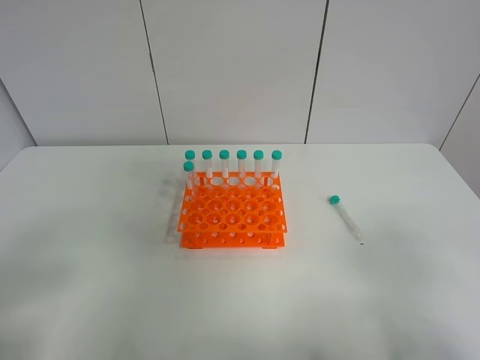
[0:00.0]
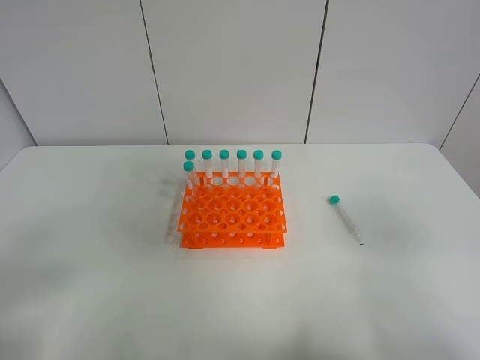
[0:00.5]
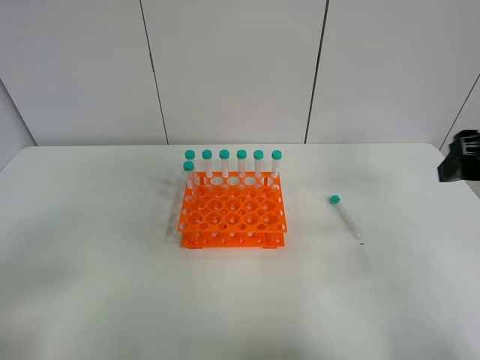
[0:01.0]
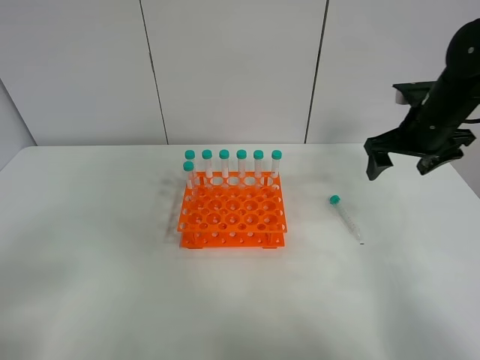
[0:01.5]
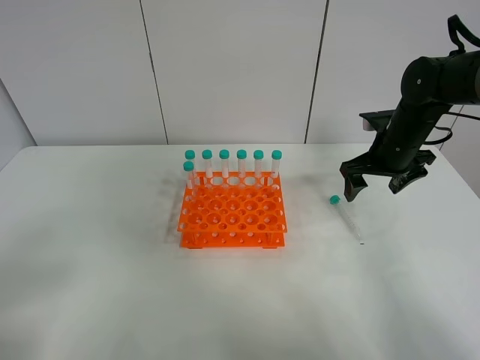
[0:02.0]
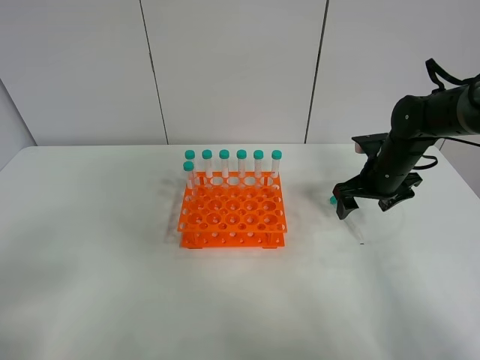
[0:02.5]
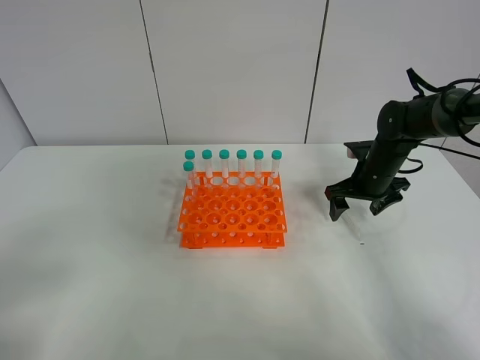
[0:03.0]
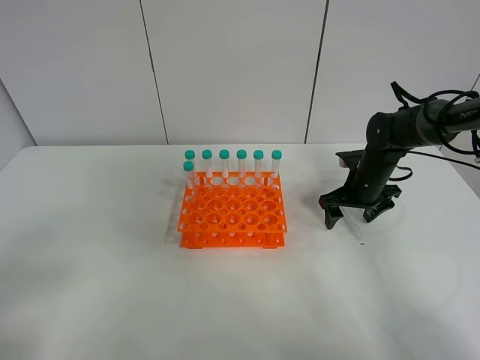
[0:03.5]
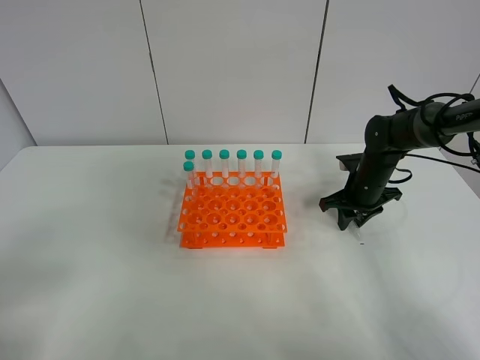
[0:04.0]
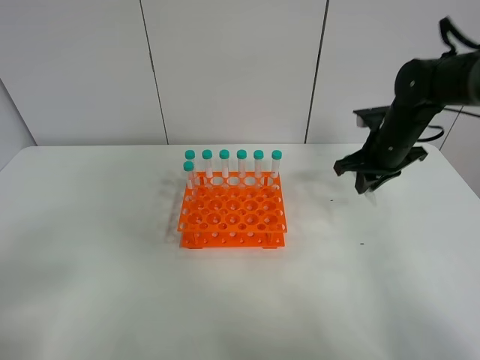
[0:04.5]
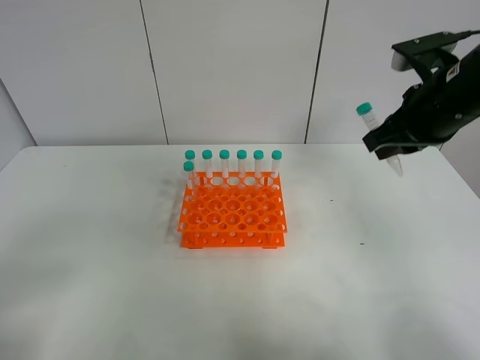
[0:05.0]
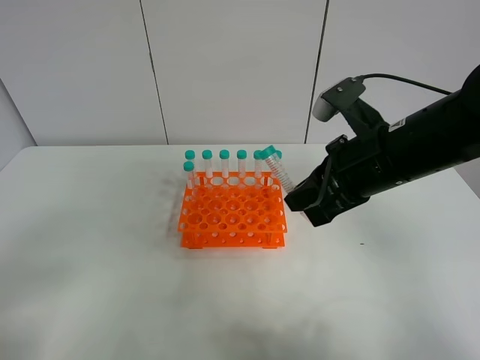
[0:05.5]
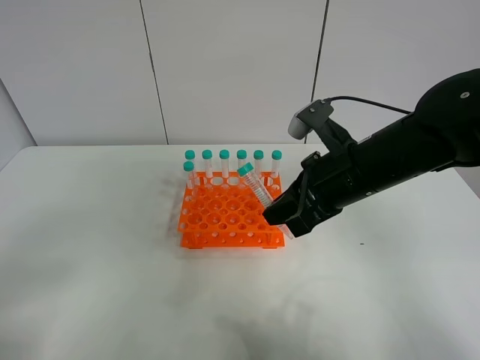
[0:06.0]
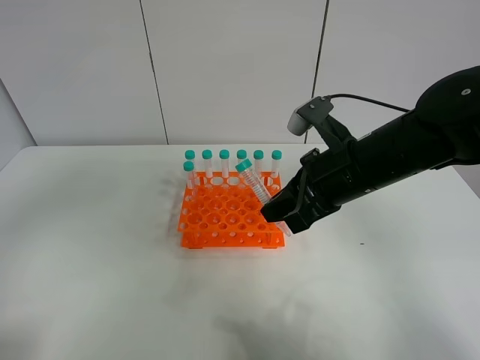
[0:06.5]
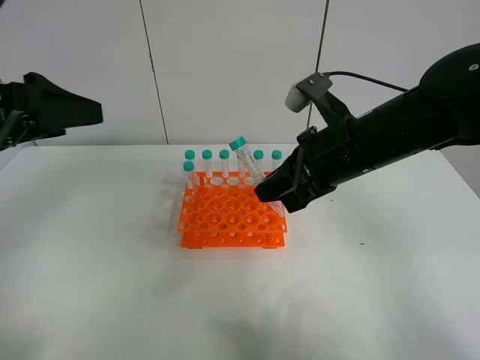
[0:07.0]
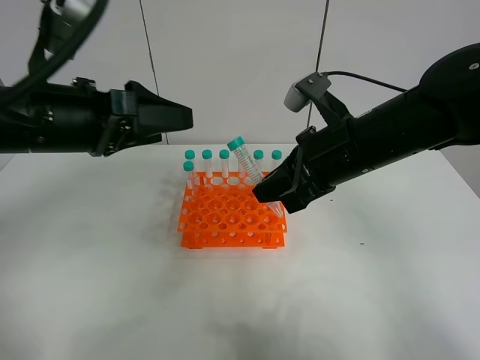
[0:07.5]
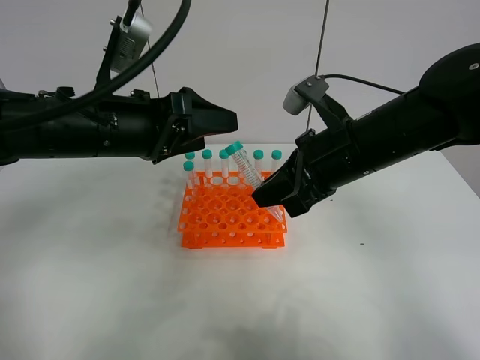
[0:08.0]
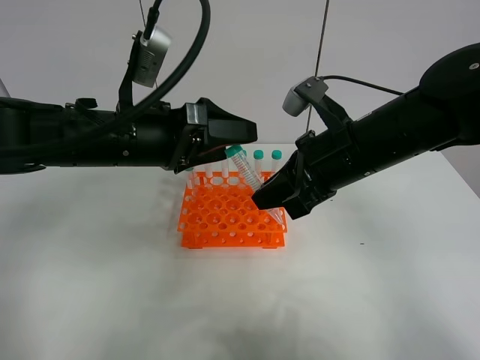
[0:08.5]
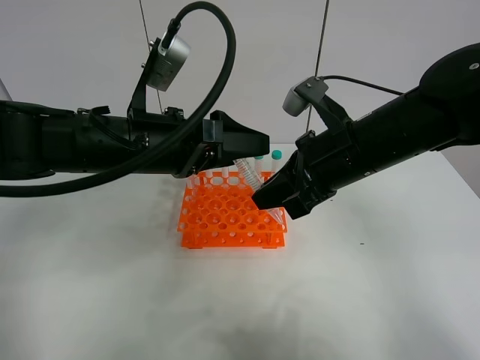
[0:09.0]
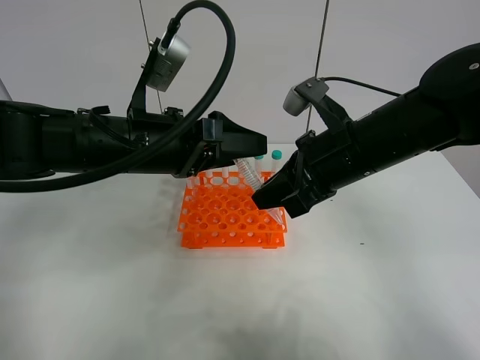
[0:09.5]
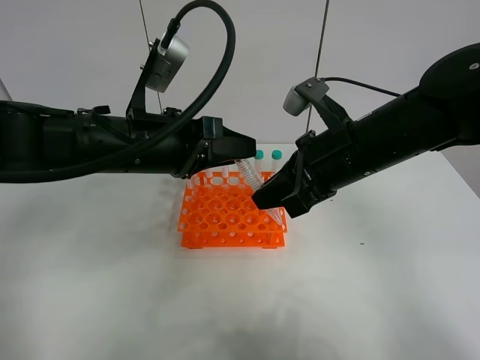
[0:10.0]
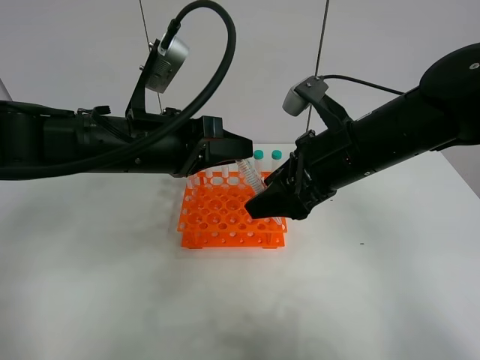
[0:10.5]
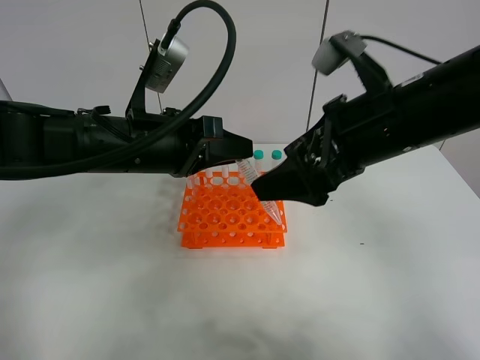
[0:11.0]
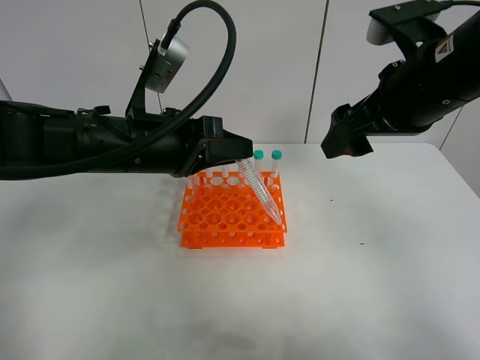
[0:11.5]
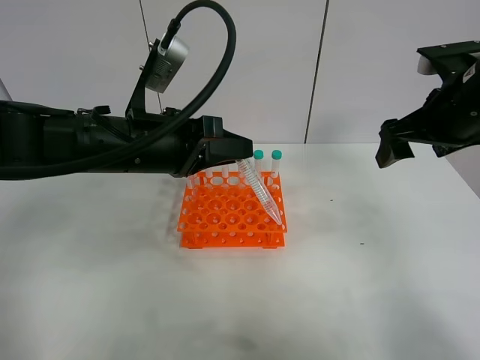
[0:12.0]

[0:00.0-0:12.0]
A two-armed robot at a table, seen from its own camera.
Task of the whole recording: Put the test tube on the table back onto the test tube rack.
Step, 0:00.0 to 0:04.5: Pick up the test tube with the right gripper.
Step, 0:05.0 to 0:11.5: Move the test tube from the right gripper to the left gripper.
0:00.0 to 0:02.0: The right gripper shifts about 40 cm forward.
0:02.0 to 0:04.0: The right gripper shifts some 10 cm downward, and closes its fingers.
0:04.0 to 0:06.0: The right gripper heads backward, upward and to the left, covering some 25 cm.
0:06.0 to 0:08.0: The left gripper shifts about 30 cm forward and to the right.
0:08.0 to 0:10.0: The left gripper closes up.
0:10.0 to 0:12.0: The right gripper is displaced to the right by approximately 15 cm, and opens up.

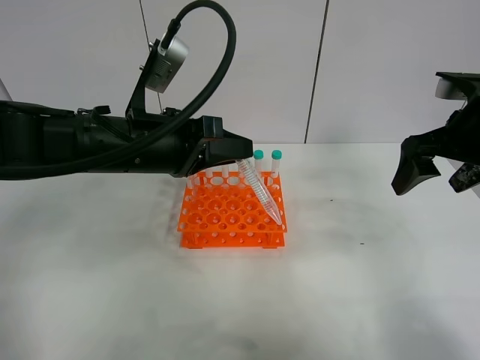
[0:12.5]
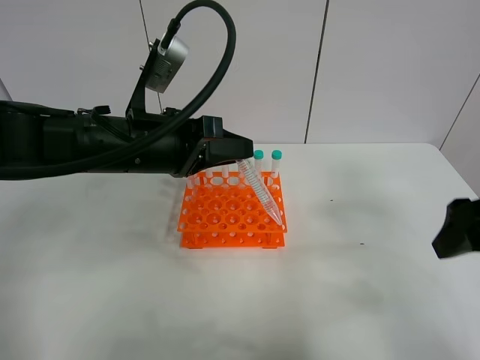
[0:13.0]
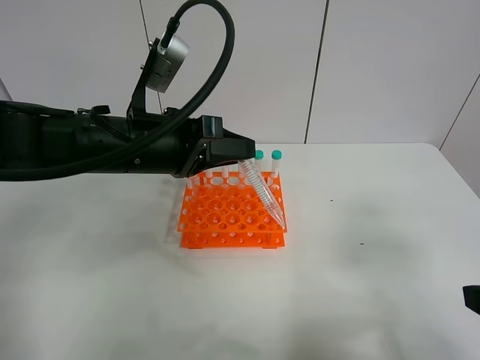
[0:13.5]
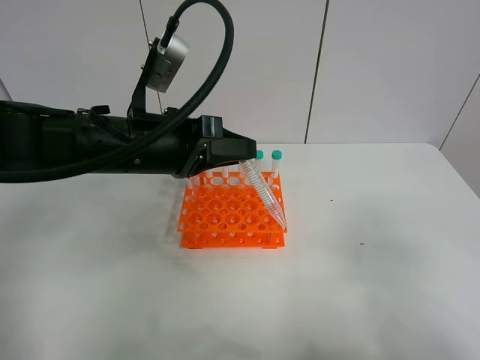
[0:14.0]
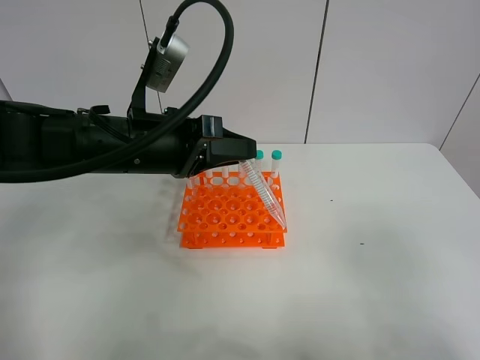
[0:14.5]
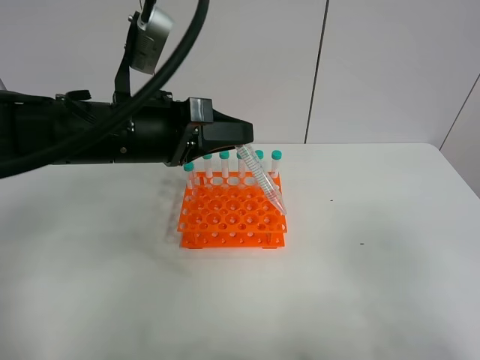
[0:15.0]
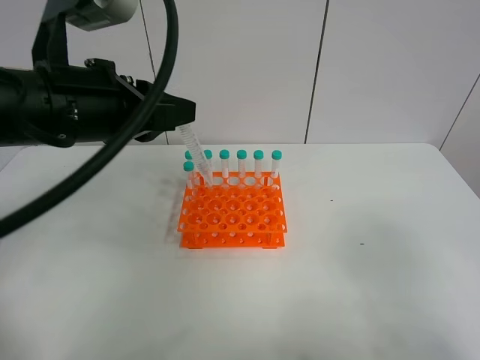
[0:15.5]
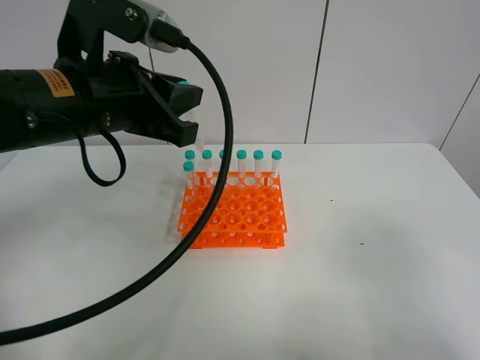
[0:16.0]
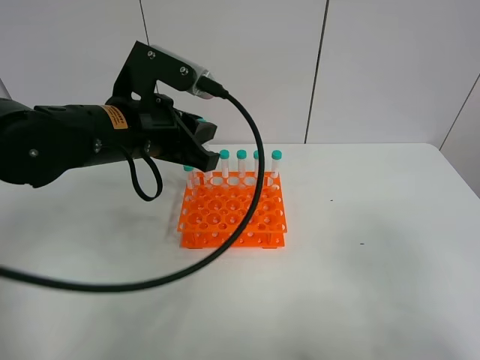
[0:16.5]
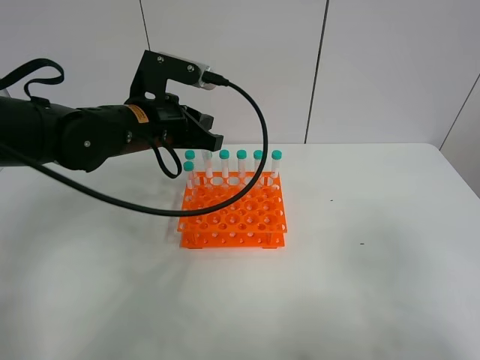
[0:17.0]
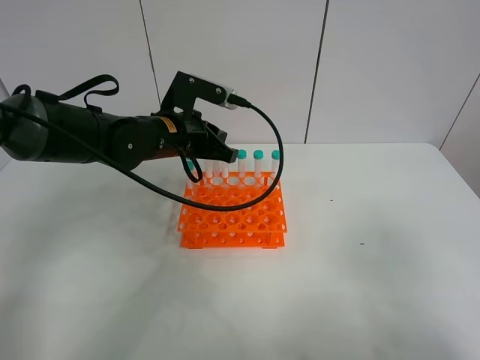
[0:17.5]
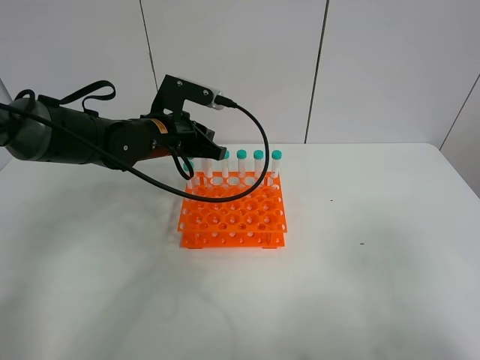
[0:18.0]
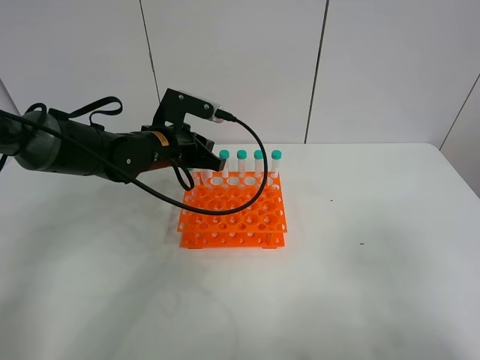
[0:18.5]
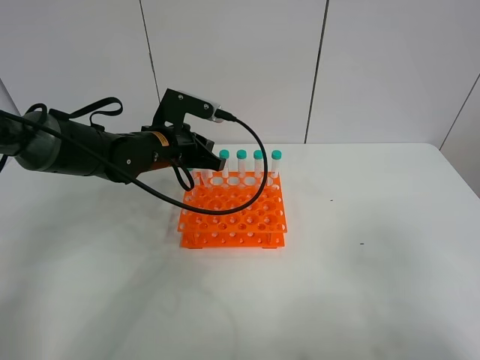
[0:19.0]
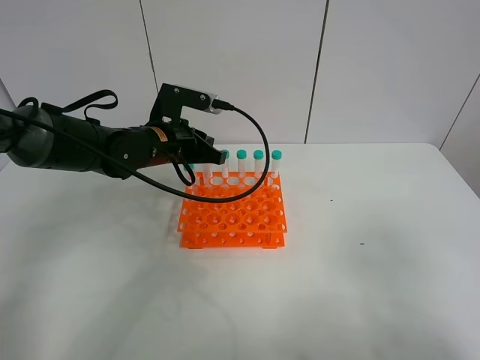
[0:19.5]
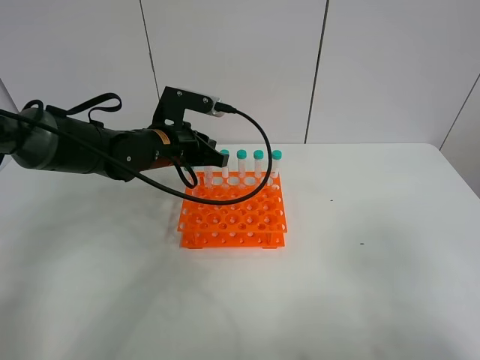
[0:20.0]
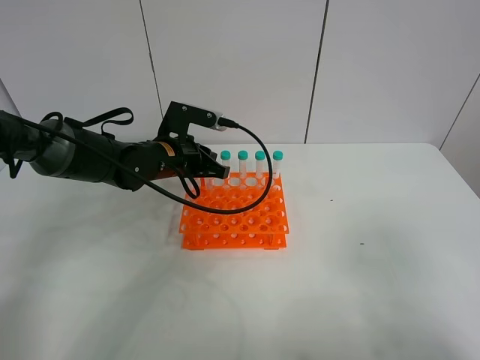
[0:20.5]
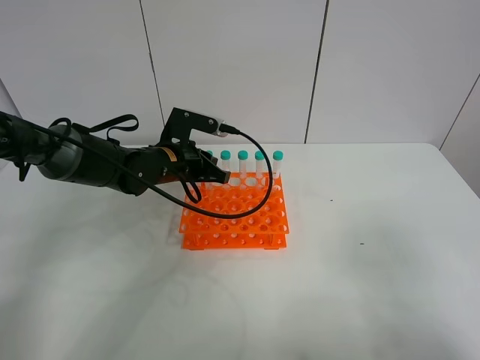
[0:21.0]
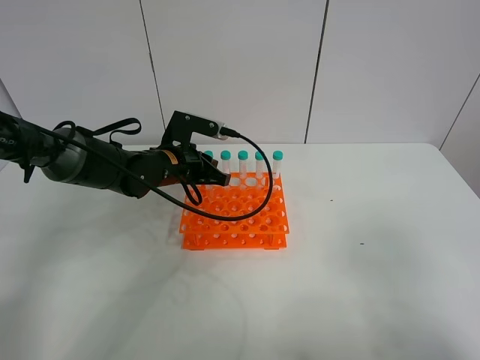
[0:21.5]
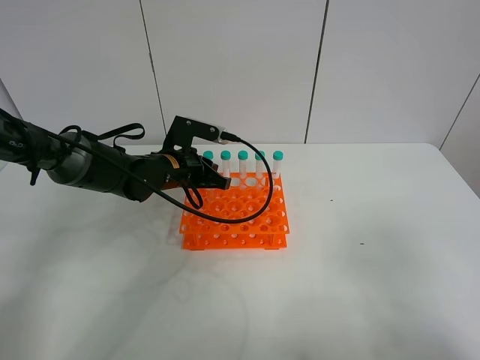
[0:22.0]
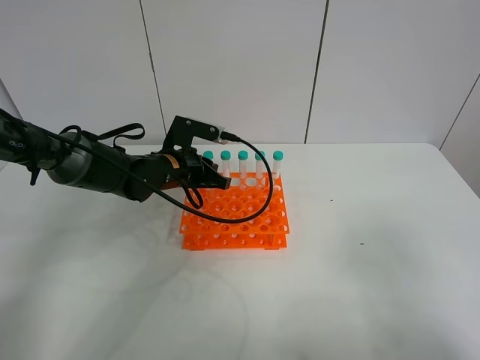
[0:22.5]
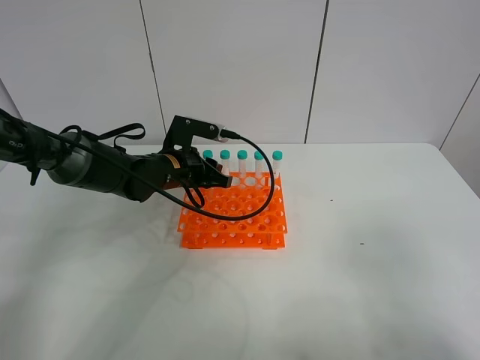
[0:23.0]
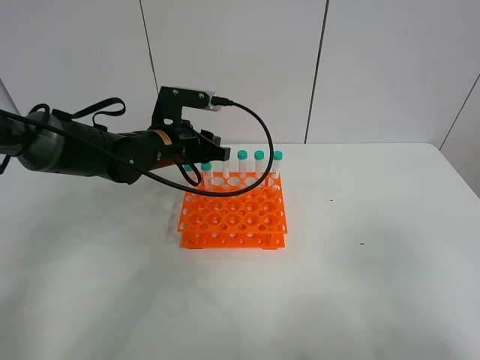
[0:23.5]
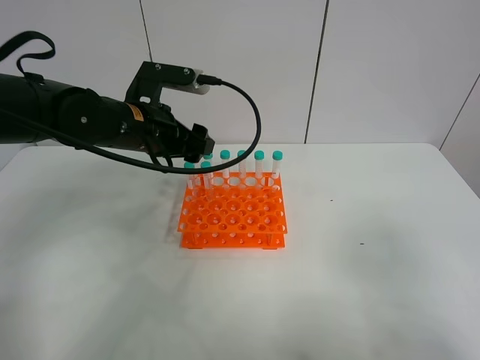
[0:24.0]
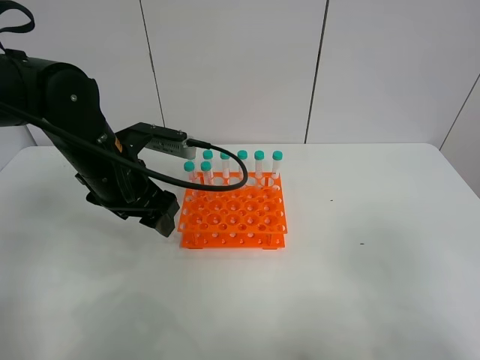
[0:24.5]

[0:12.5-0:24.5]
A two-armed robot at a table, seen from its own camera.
Task of the whole recording: Put the test tube on the table back onto the test tube rack.
0:12.5 to 0:14.5: The right gripper moves backward, roughly 30 cm.
0:14.5 to 0:16.5: The left gripper travels upward and back again, some 10 cm each way.
0:16.5 to 0:18.5: The left gripper shifts roughly 15 cm forward and downward.
0:18.5 to 0:22.5: The grippers move only a little.
0:22.5 to 0:24.5: The left gripper is displaced upward and backward by approximately 10 cm, and opens up.

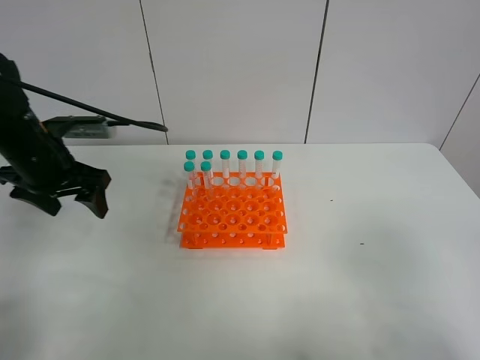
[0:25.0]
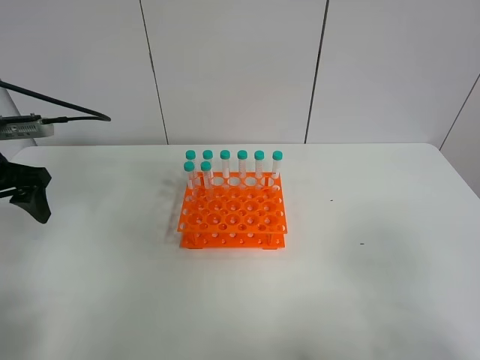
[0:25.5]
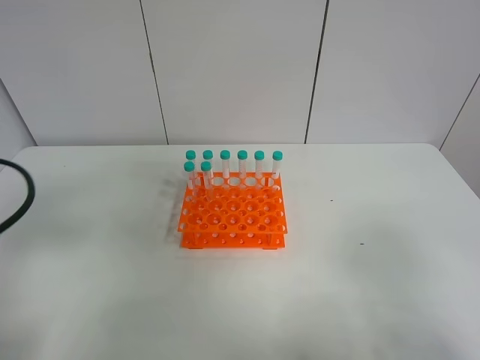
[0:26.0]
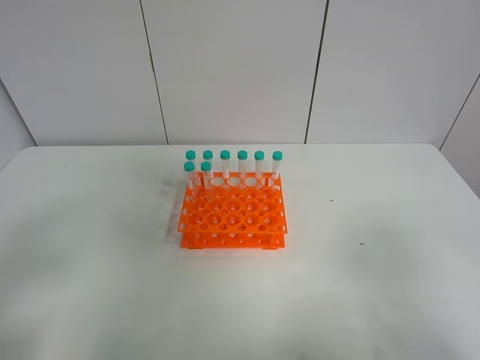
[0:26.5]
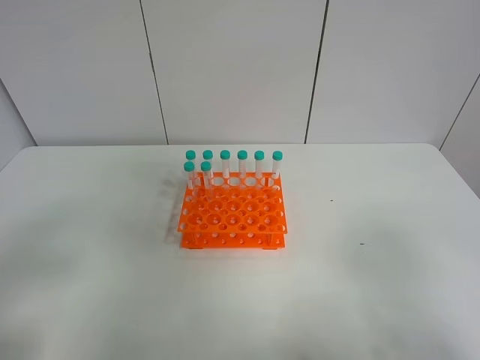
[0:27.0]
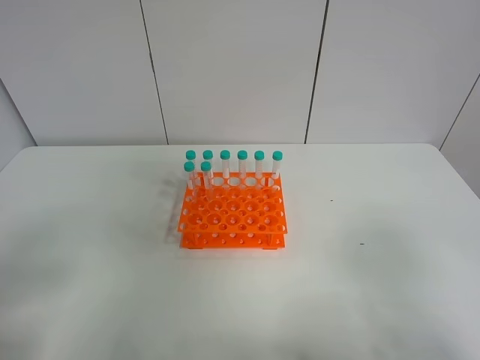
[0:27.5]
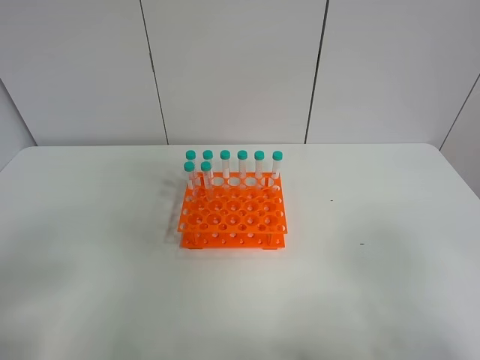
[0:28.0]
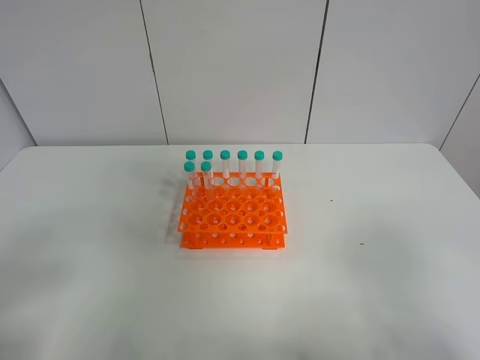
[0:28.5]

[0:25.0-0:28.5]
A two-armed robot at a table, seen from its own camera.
Task of the whole recording: Put the test tube on the table back onto the test tube rack.
0:25.0 to 0:27.0: The left gripper shifts approximately 30 cm backward.
